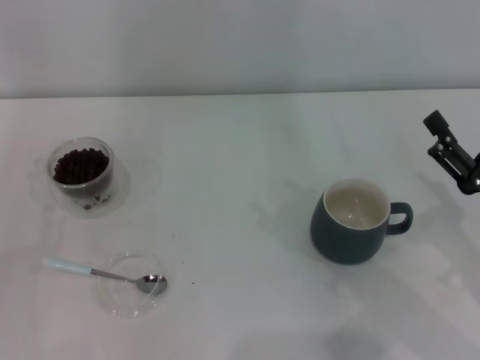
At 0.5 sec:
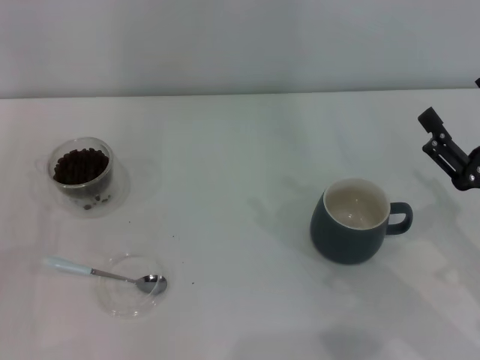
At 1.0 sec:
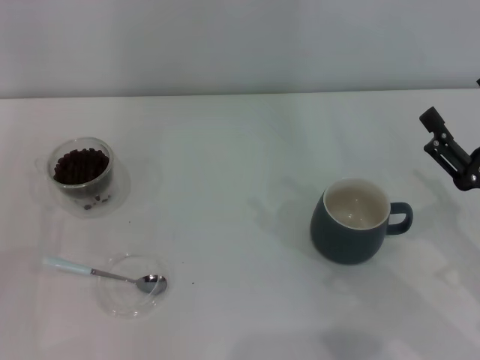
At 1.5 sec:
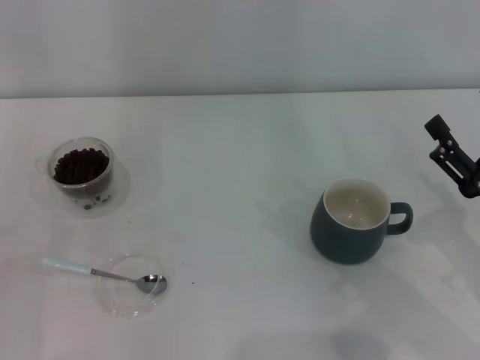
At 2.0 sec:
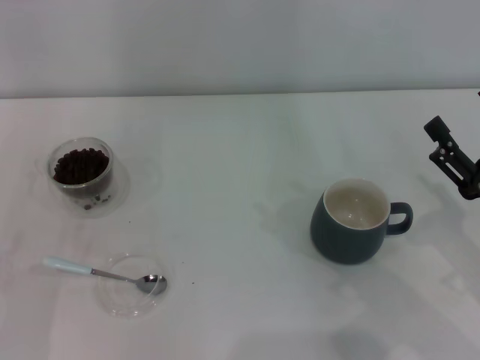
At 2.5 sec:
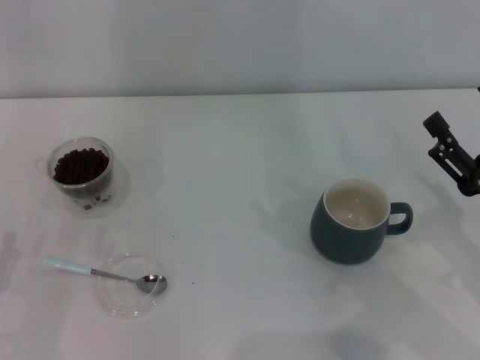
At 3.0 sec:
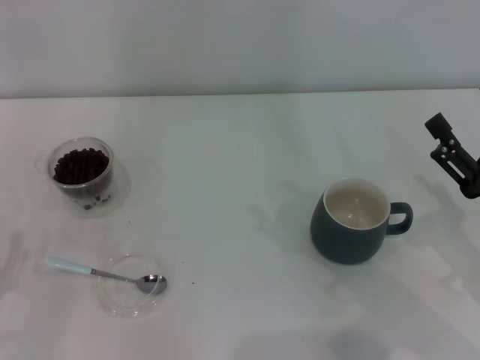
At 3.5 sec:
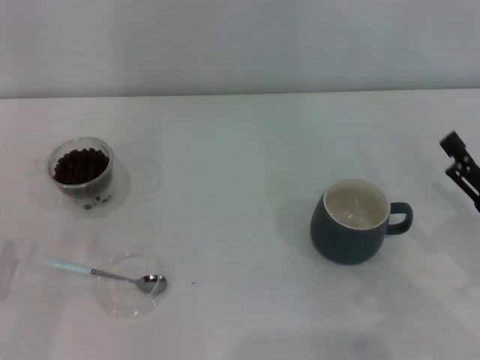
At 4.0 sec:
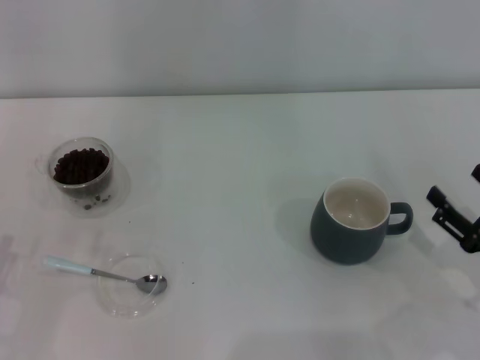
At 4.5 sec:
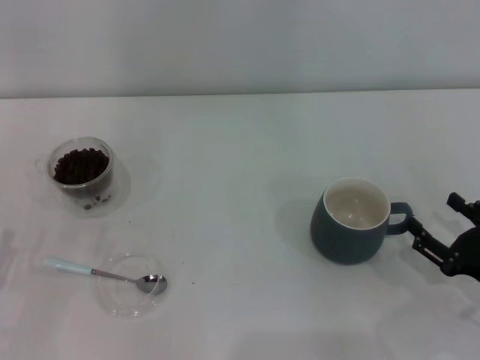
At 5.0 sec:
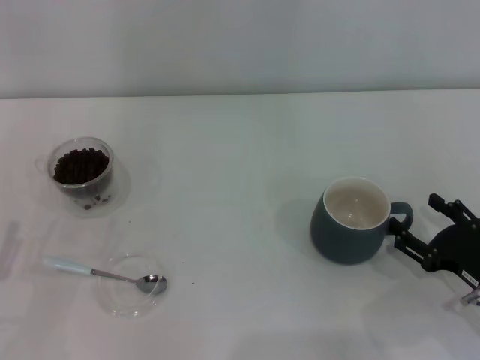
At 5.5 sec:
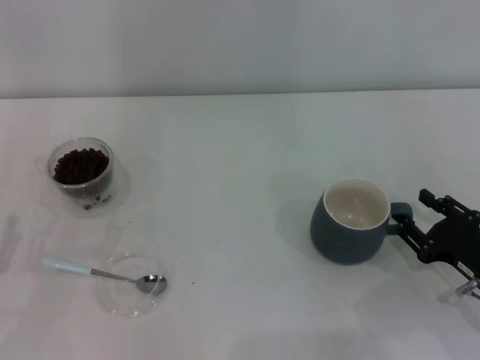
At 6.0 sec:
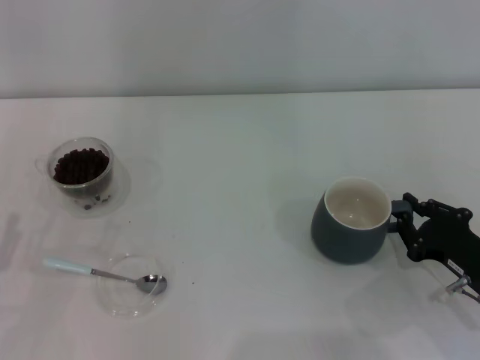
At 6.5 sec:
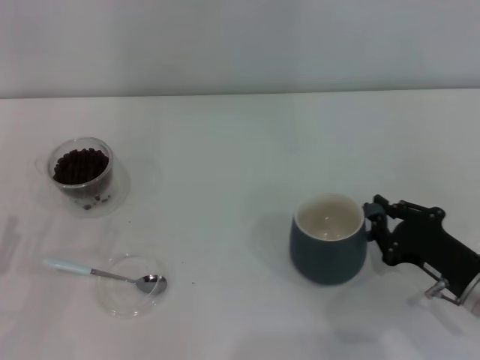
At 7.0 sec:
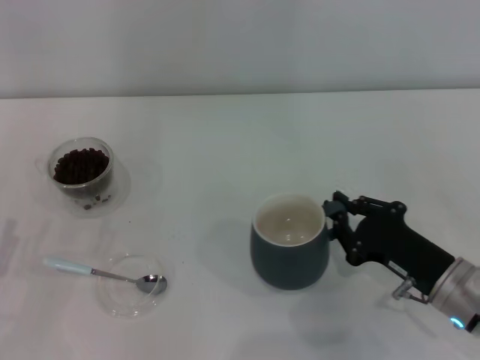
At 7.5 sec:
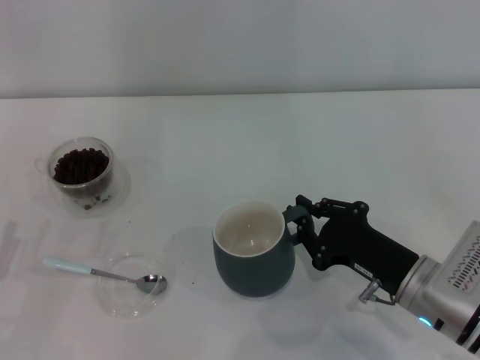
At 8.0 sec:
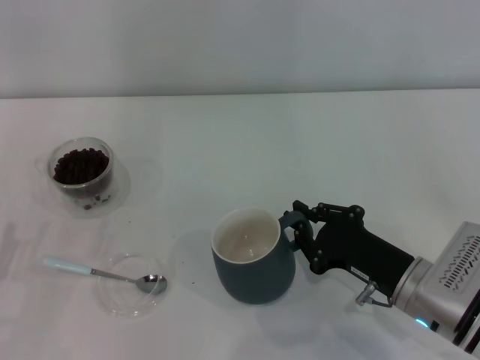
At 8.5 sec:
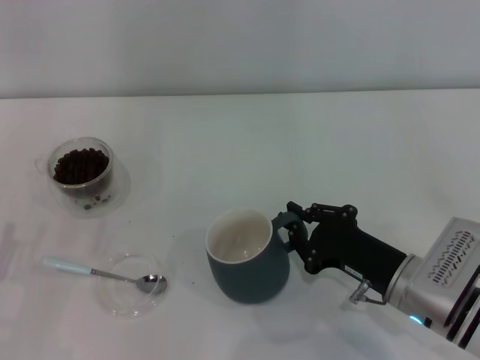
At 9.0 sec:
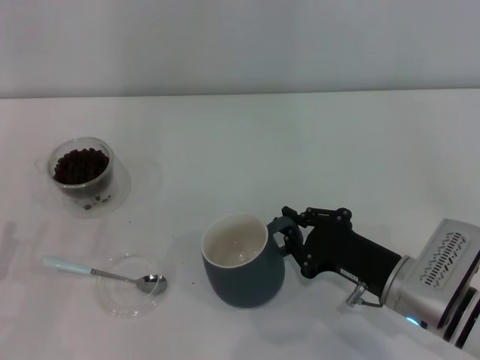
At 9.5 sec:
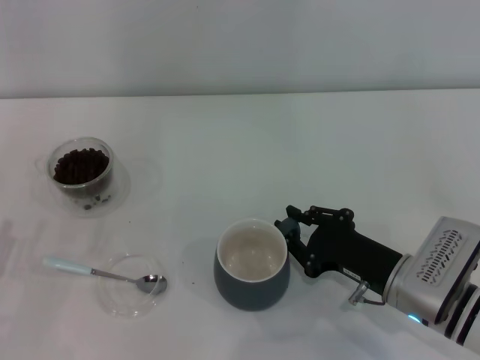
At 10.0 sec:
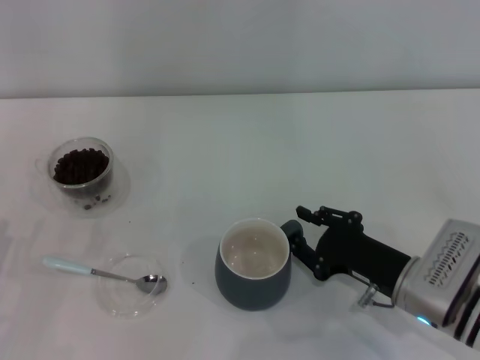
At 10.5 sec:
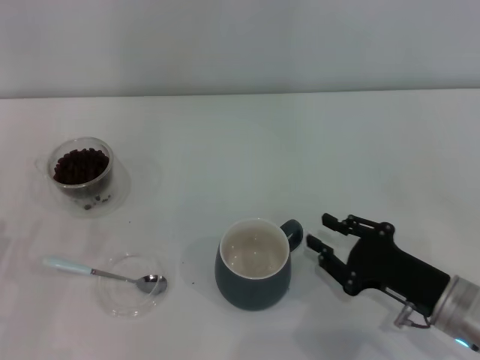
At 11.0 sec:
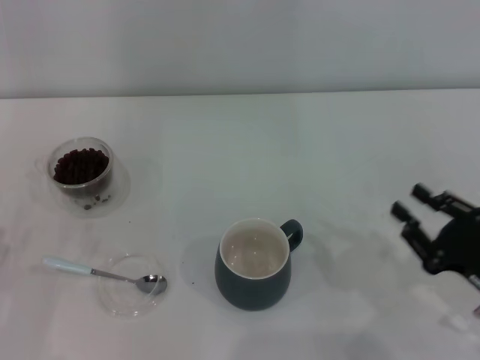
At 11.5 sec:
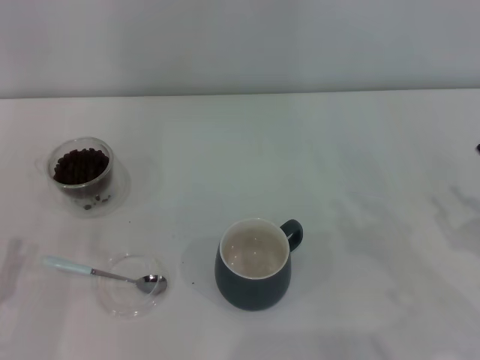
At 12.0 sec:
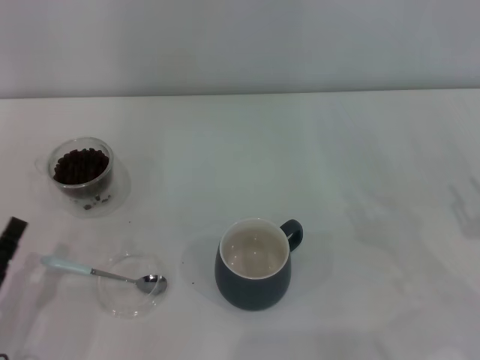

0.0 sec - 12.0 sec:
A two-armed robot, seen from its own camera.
Task of the whole recording: Use a blue spoon to take out the coffee beans from the glass and pour them into the gray cup.
Step, 0.0 sec - 10.5 sec: Move the cup to the center of view with the left gripper.
2.0 sec - 4.0 sec: The right gripper changes place by approximately 5 cm.
4.0 sec - 6.0 sec: The right gripper closes up.
6.0 sec - 8.0 sec: The right gripper shifts about 10 cm to the left.
8.0 sec - 10.0 sec: The grippers make only small movements.
10.0 sec - 12.0 sec: The right gripper goes about 15 cm to the right. The left gripper heads to the right, covering approximately 5 cm.

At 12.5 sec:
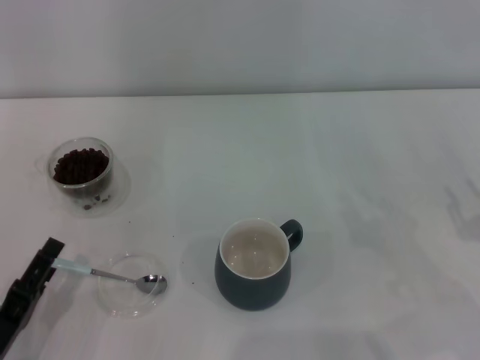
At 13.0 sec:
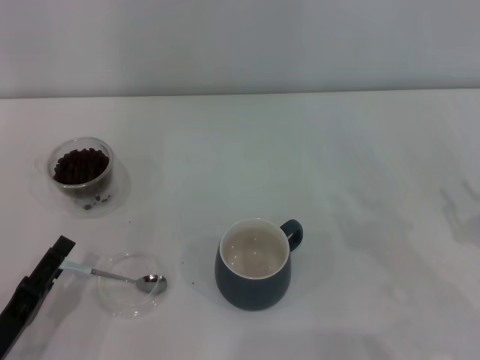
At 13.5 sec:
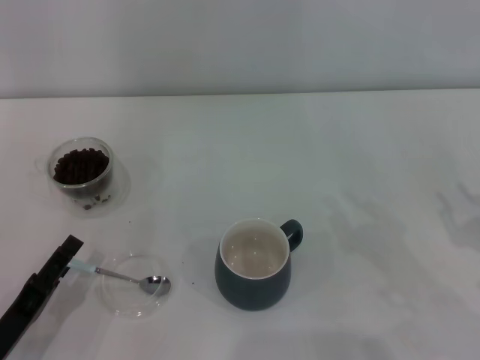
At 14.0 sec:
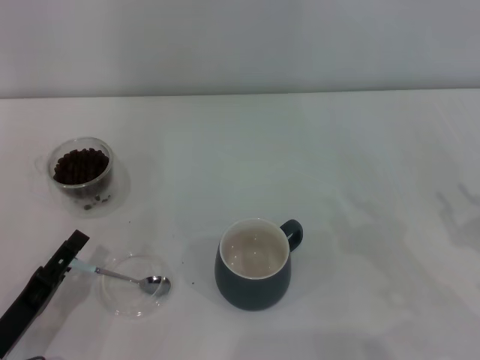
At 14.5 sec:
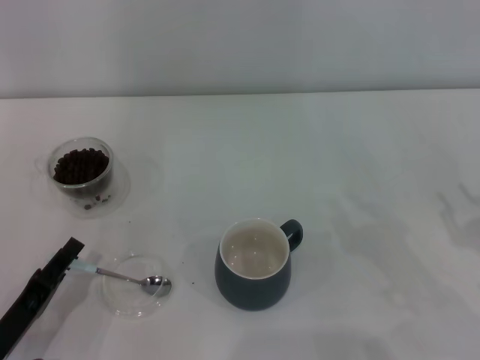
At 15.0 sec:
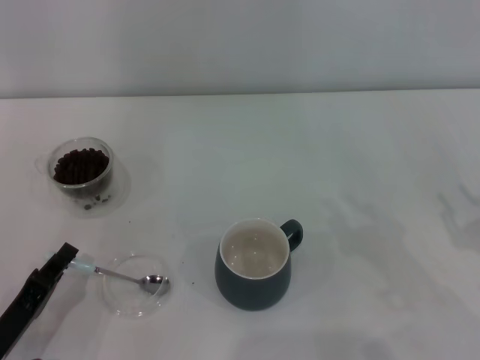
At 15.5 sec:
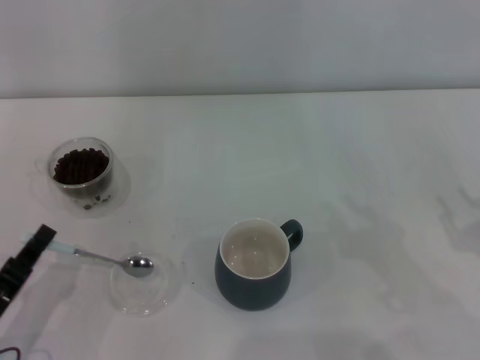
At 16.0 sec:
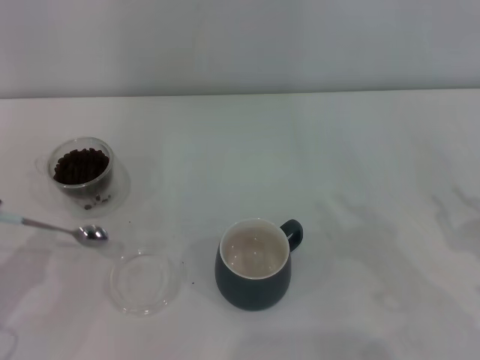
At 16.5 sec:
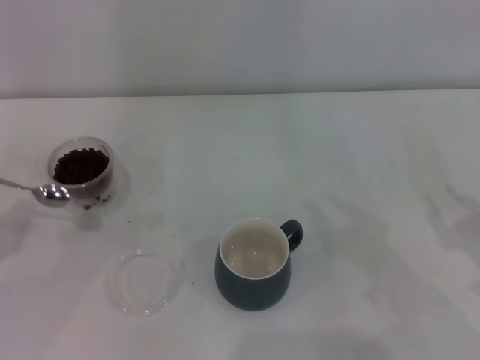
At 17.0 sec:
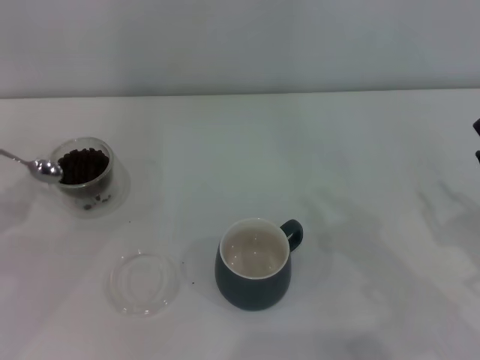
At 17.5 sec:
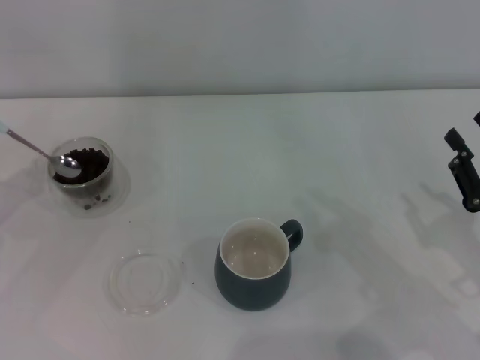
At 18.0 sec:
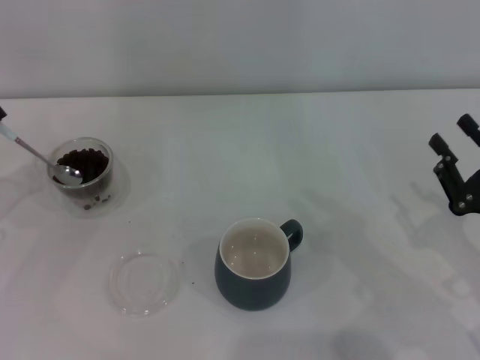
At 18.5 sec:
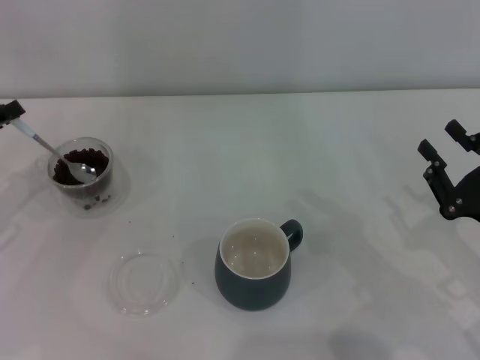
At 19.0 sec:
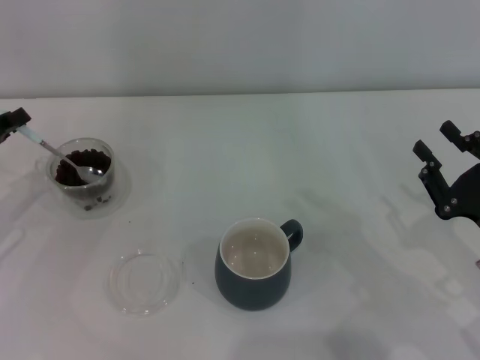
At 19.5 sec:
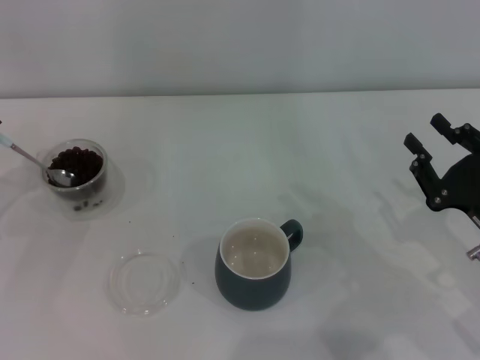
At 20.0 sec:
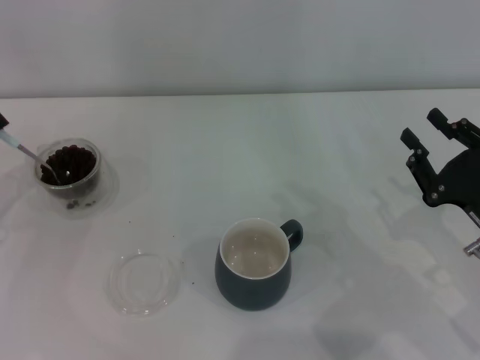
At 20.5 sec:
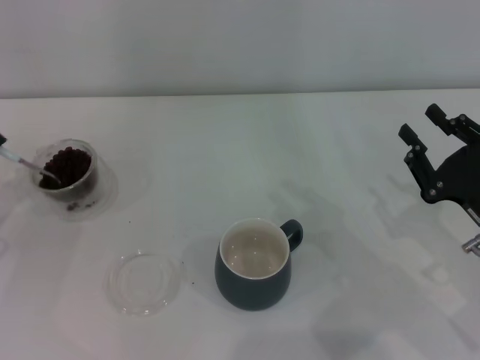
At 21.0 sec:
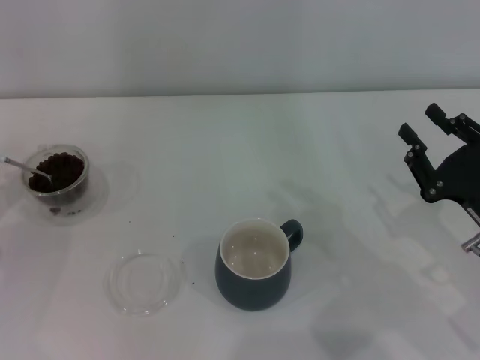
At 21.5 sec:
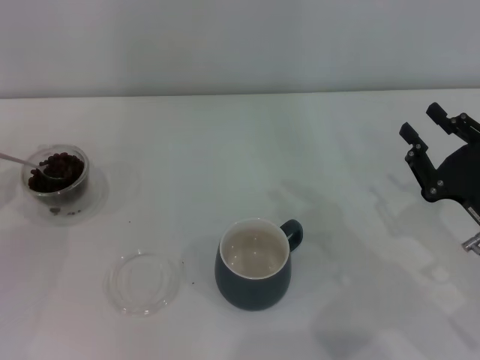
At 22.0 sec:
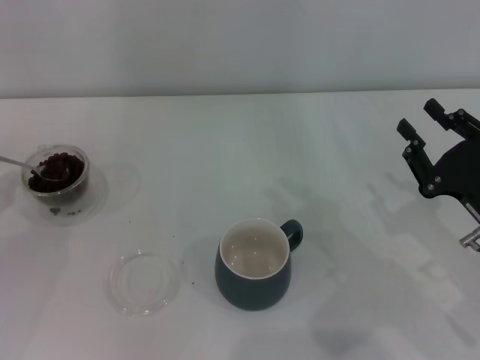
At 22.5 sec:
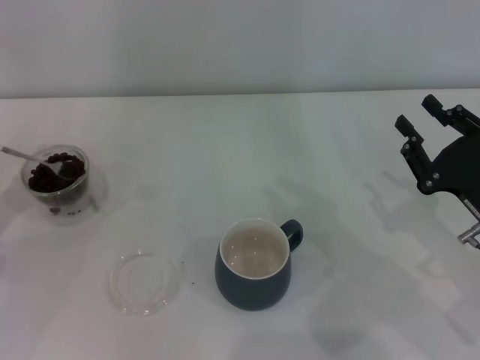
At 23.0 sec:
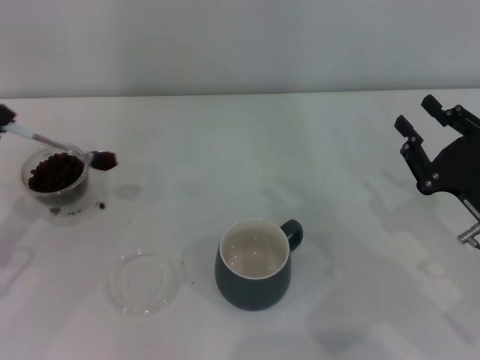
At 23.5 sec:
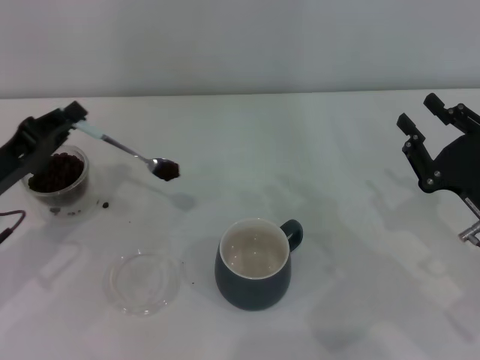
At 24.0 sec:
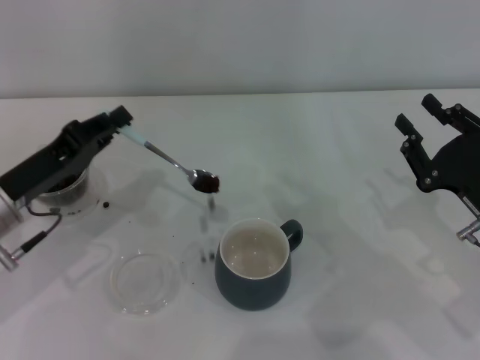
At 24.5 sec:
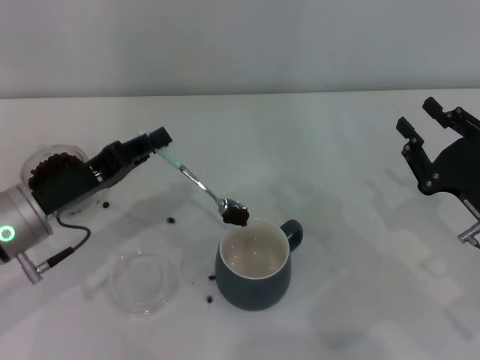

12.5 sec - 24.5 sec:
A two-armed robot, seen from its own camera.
Task of the whole recording: Use a blue spoon to take out the coffee beans from the glass and pour them into the gray cup.
Step, 12.5 sec - 15.5 sec: Pick up the spoon with the right gripper.
12.5 sec - 14.5 sec: The left gripper closes its fingers.
14.5 sec - 16.5 sec: The left gripper is displaced to the left and upward by about 15 cm, and closes up.
16.5 sec - 18.5 sec: The left gripper is displaced forward by some 10 cm.
18.5 sec - 20.5 sec: There are only small adjustments of the grippers.
20.5 sec - 22.5 sec: The grippers stay close to where they were, moving slightly.
22.5 sec - 24.5 sec: The left gripper goes about 15 cm to the right.

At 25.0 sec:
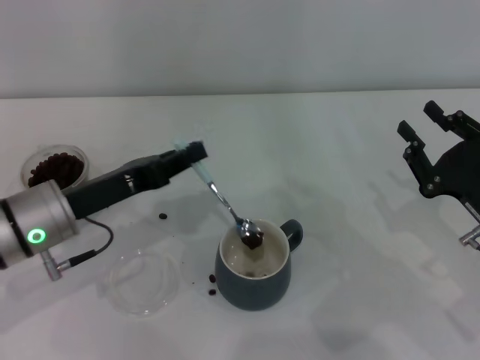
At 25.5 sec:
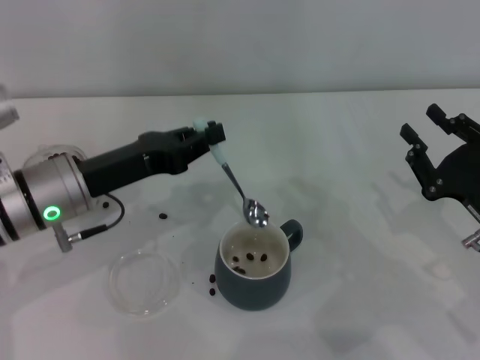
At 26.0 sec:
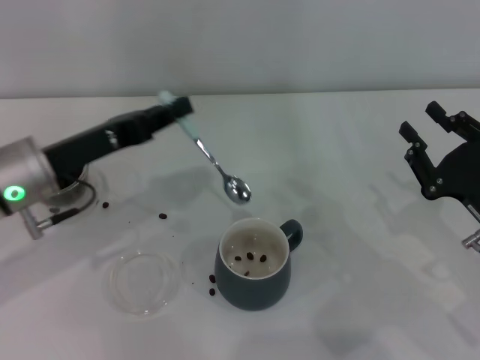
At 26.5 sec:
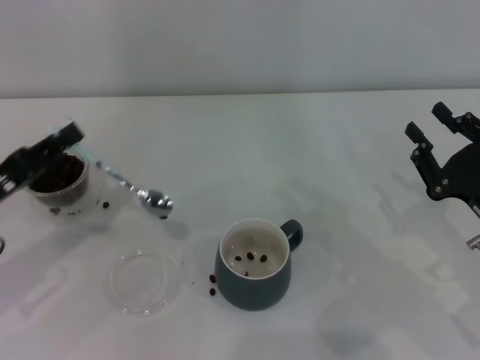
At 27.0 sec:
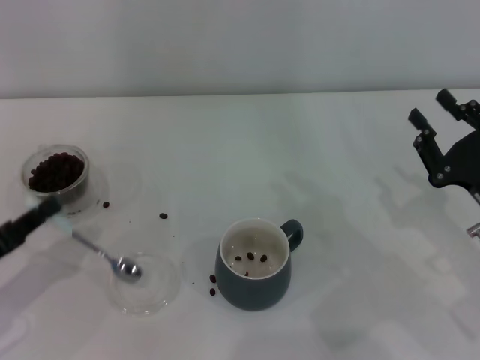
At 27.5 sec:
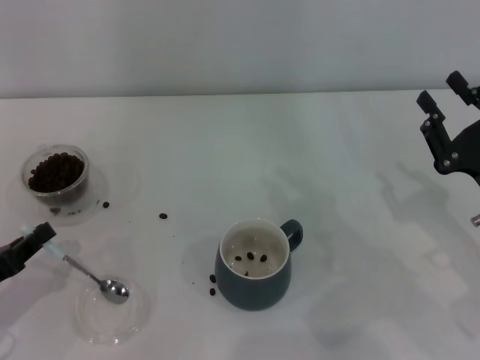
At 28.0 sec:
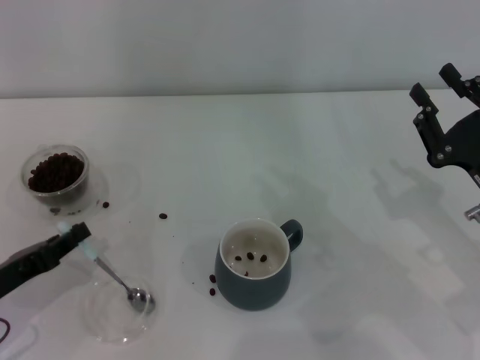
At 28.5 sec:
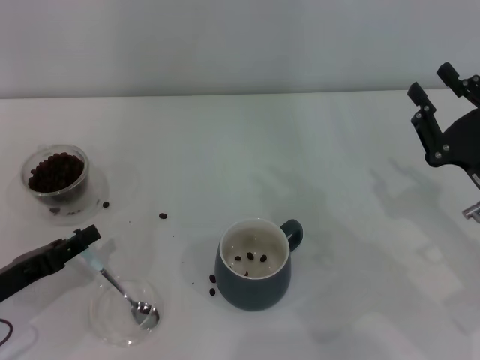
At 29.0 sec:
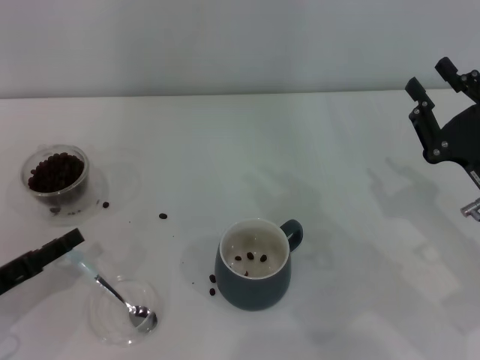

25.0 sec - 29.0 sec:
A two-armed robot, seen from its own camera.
Task of the whole recording: Use a blue spoon to take out the coffee beans from the glass and pour them into the gray cup.
25.0 sec - 27.0 sec: The left gripper travels to the left and backward by about 15 cm.
27.0 sec - 29.0 sec: The left gripper opens its fingers.
